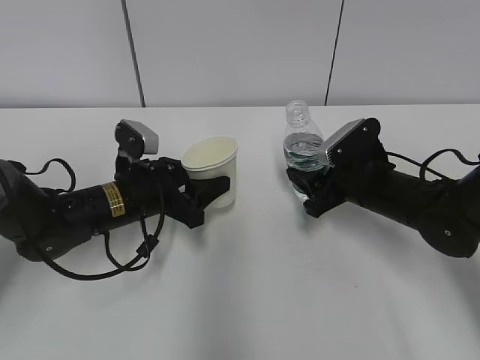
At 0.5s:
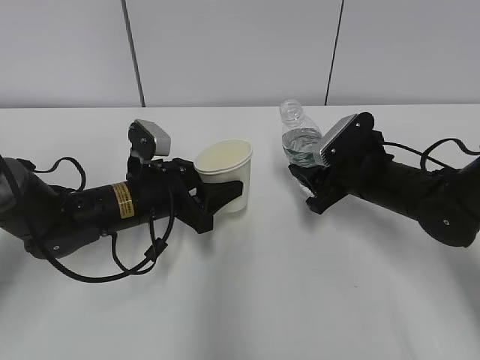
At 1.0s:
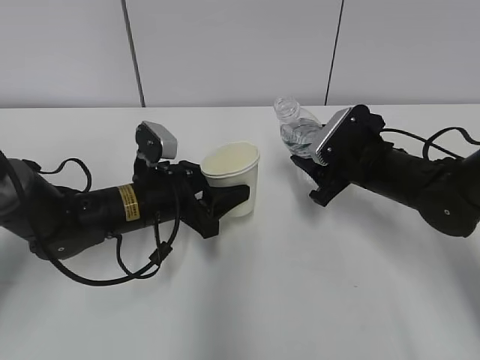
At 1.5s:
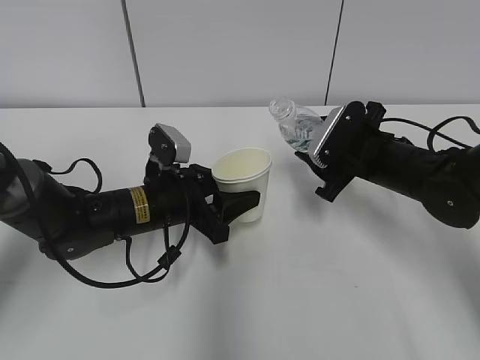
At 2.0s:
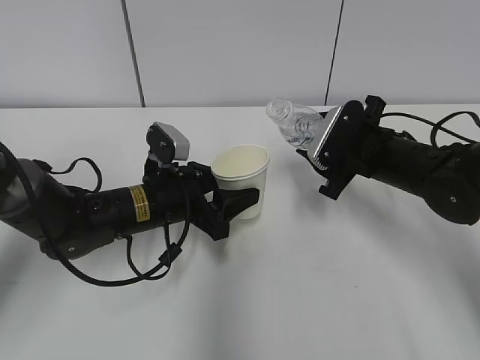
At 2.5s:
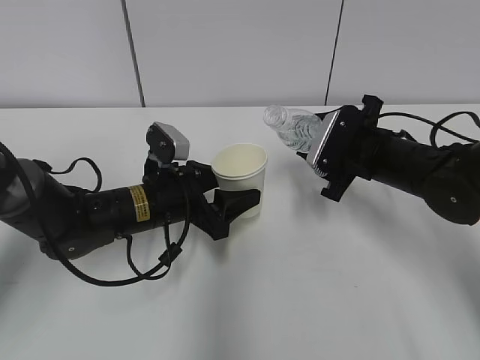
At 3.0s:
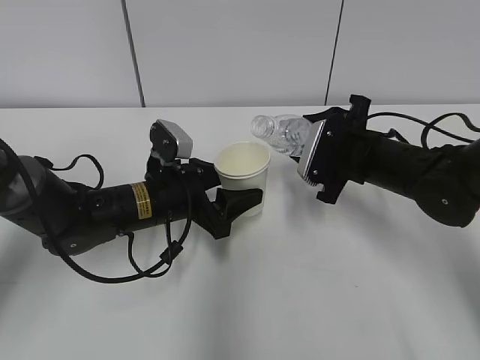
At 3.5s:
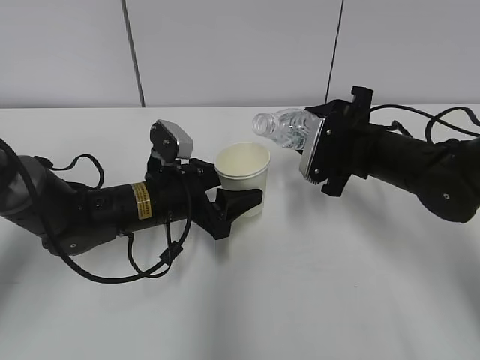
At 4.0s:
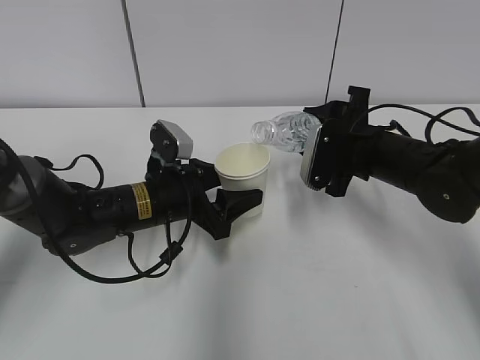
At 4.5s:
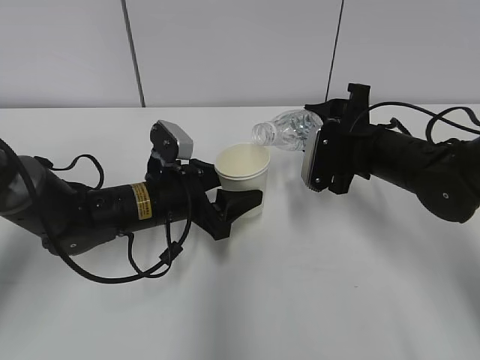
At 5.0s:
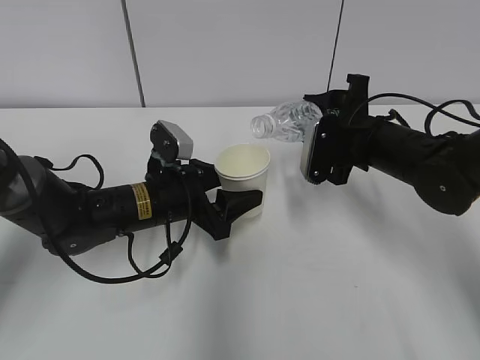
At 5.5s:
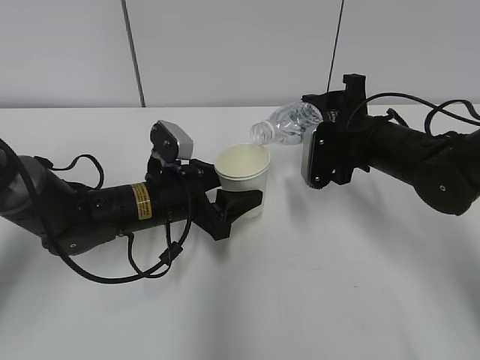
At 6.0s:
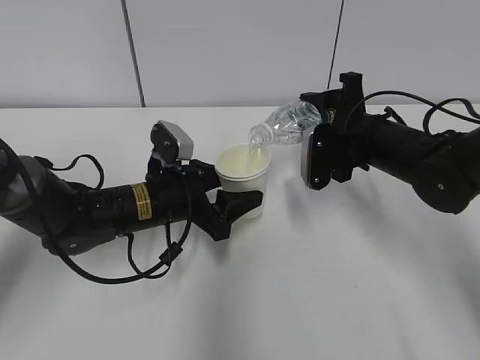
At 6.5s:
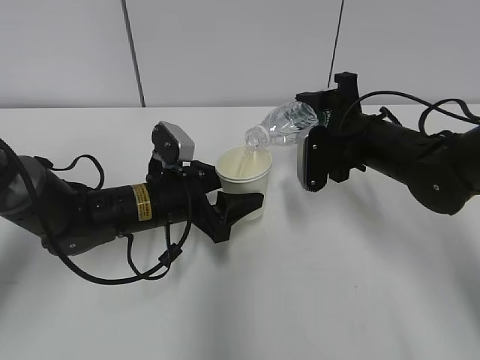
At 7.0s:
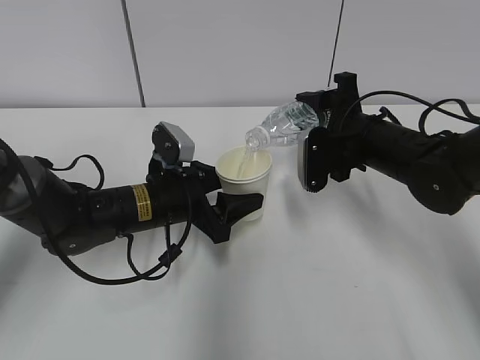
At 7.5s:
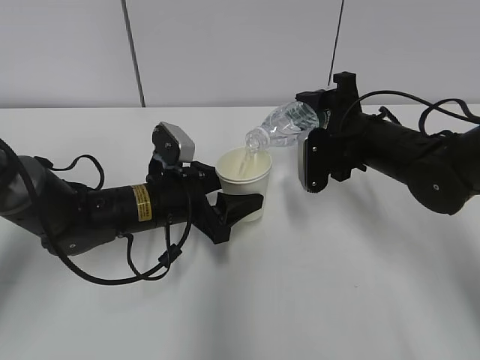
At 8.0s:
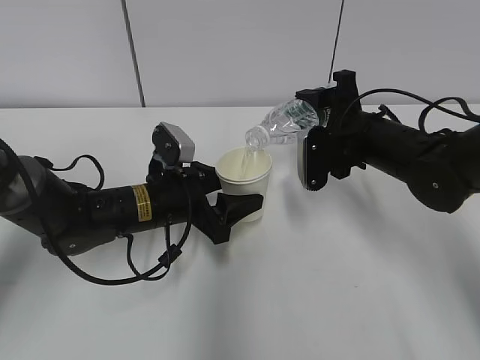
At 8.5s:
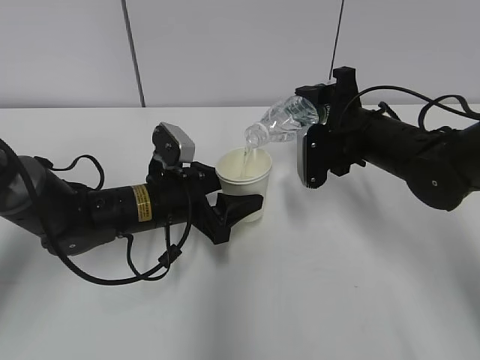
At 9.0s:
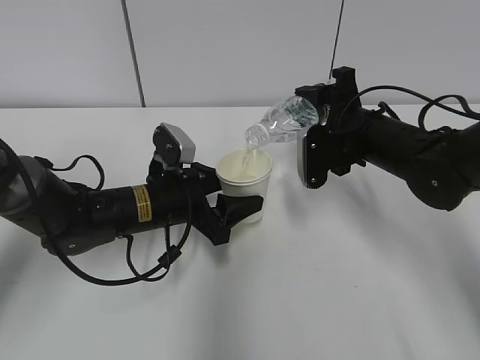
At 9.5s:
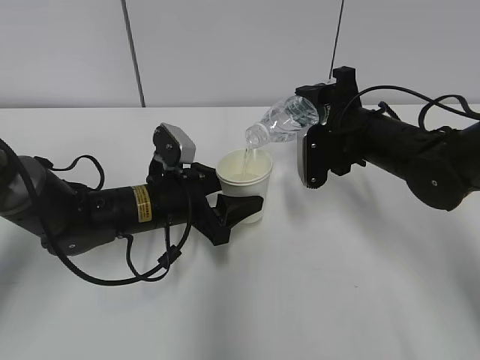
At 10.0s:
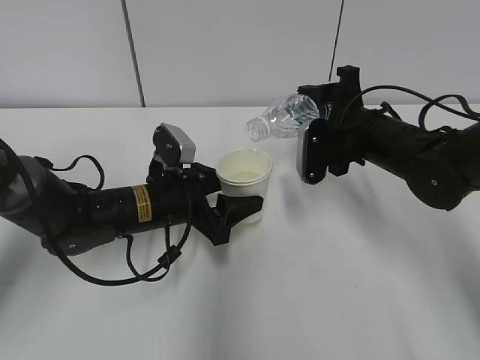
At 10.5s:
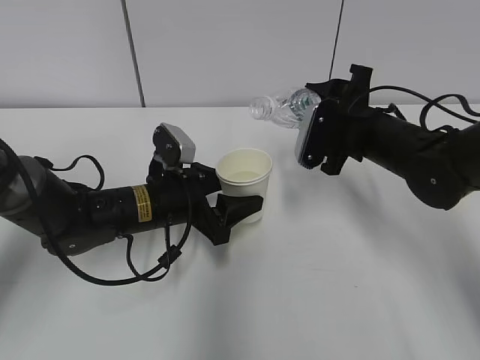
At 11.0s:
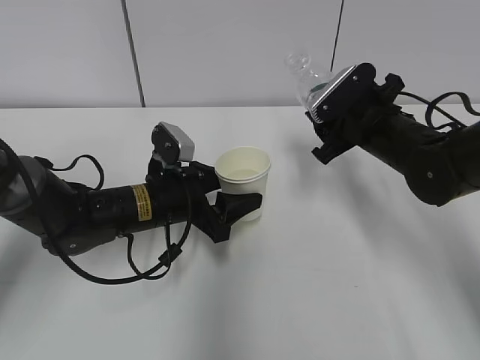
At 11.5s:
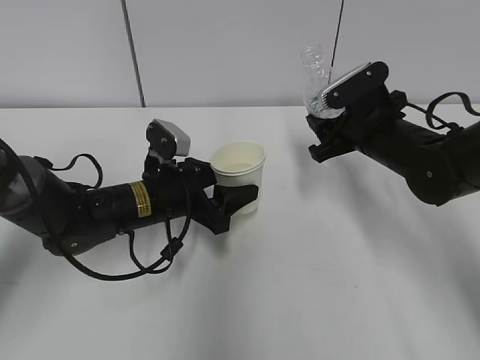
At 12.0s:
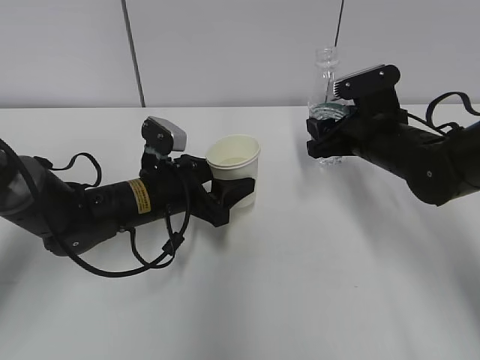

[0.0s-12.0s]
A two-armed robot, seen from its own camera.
Step, 2.0s to 5.0s: Fill water with the left hand.
Step, 2.0s to 5.0s: Pour water with the right hand.
Step, 5.5s to 7.0s: Collect water with the right hand.
Step, 9.5s to 12.0s: Place the water bottle with the right hand.
4.0s to 6.0s: The grippers move only a little.
6.0s to 8.0s: Neither gripper changes place.
8.0s to 10.0s: Neither gripper changes place.

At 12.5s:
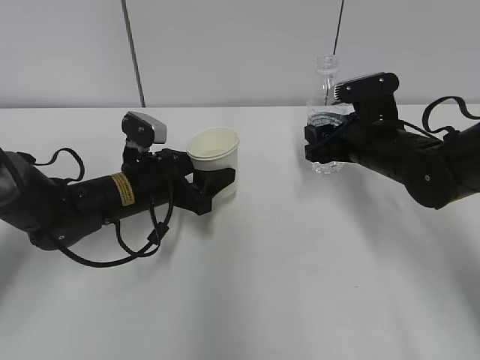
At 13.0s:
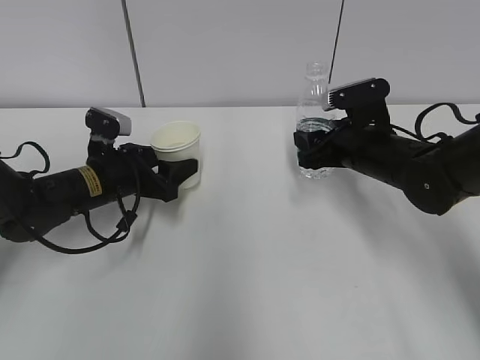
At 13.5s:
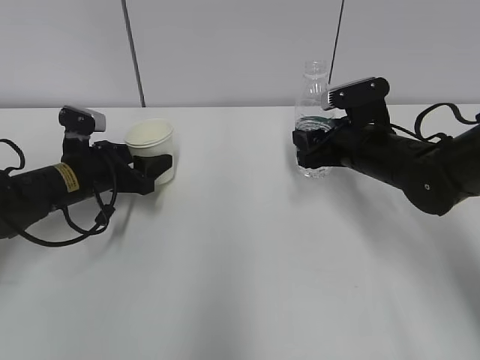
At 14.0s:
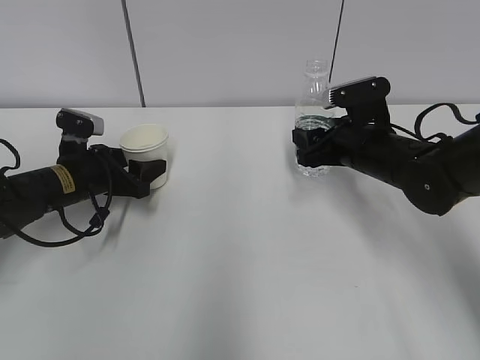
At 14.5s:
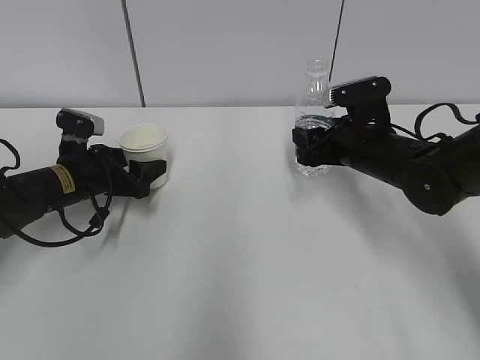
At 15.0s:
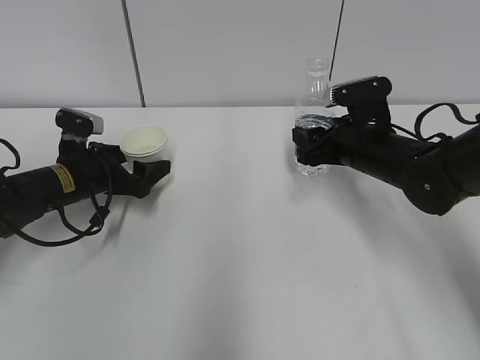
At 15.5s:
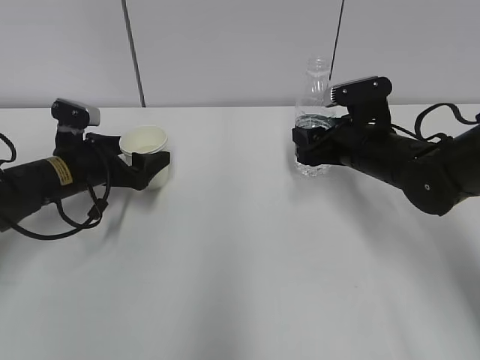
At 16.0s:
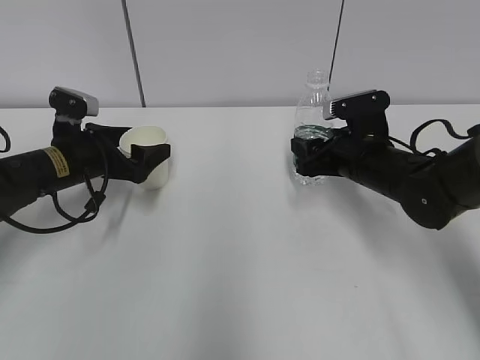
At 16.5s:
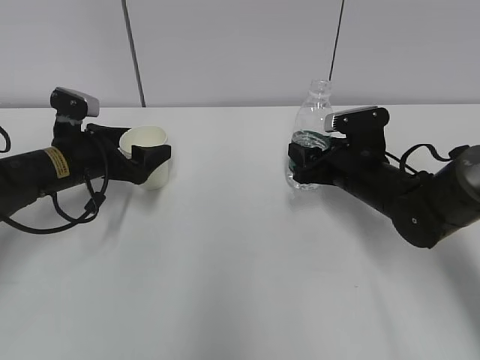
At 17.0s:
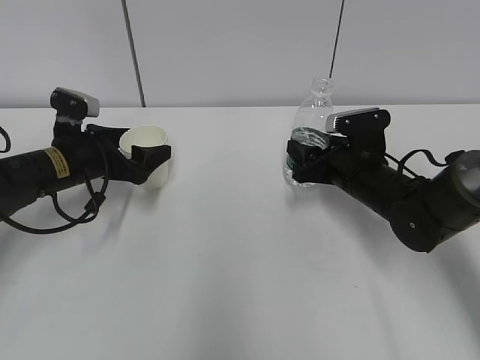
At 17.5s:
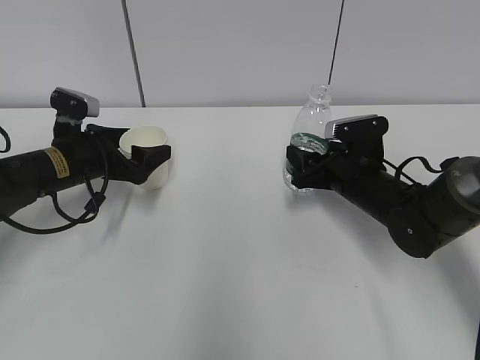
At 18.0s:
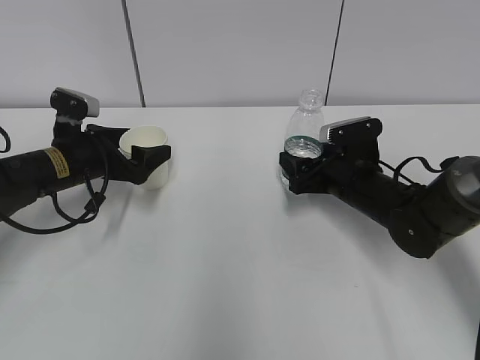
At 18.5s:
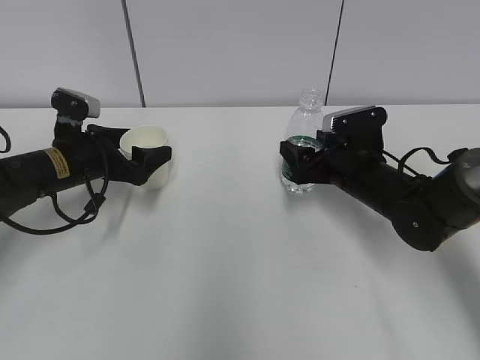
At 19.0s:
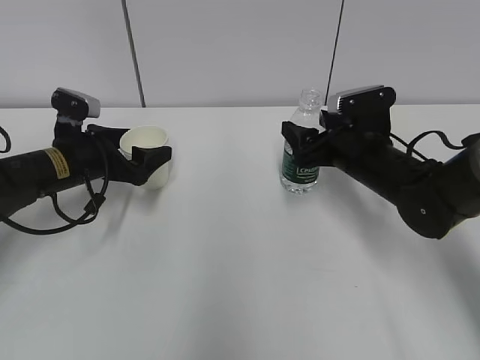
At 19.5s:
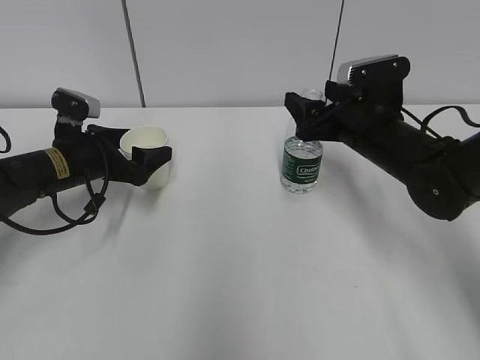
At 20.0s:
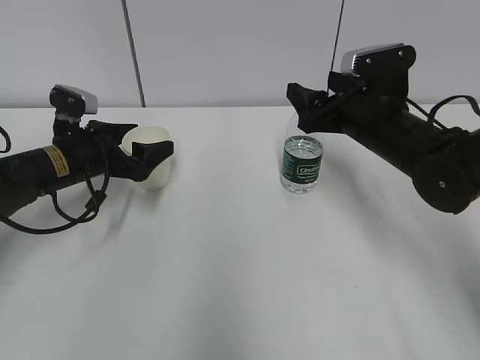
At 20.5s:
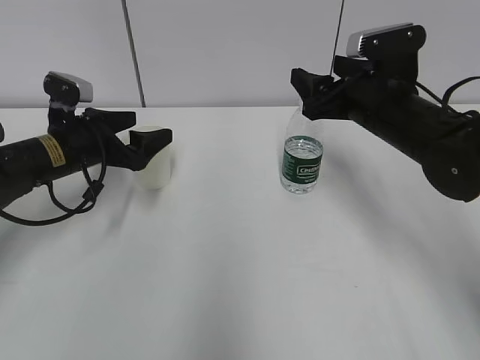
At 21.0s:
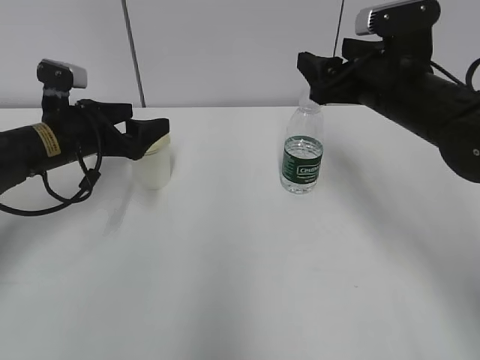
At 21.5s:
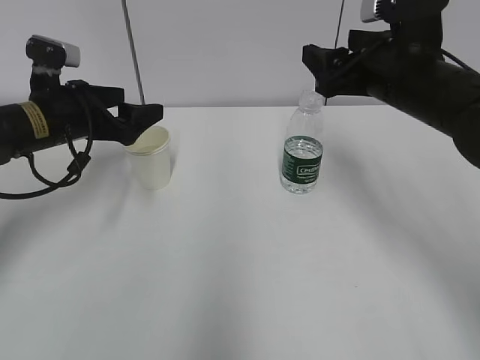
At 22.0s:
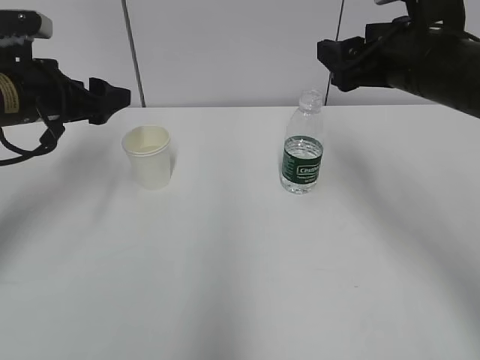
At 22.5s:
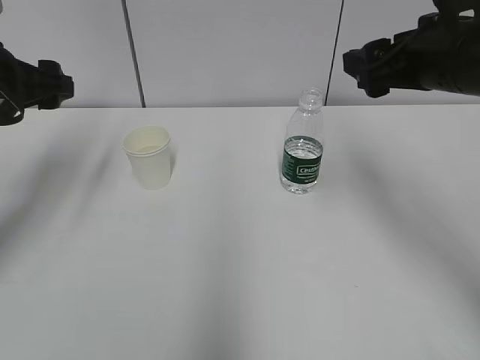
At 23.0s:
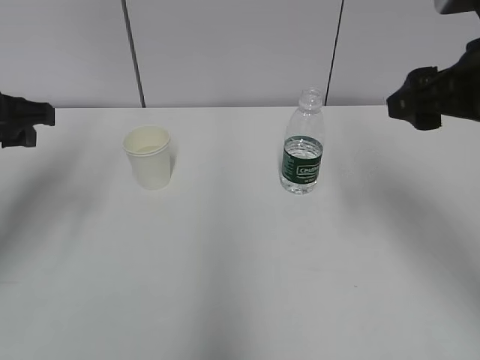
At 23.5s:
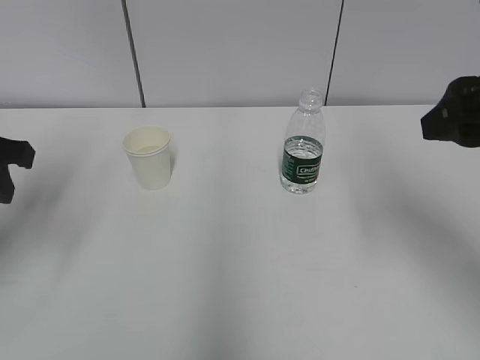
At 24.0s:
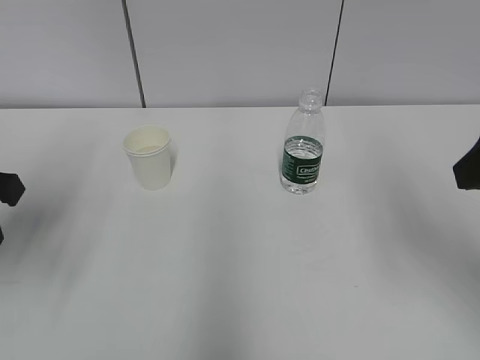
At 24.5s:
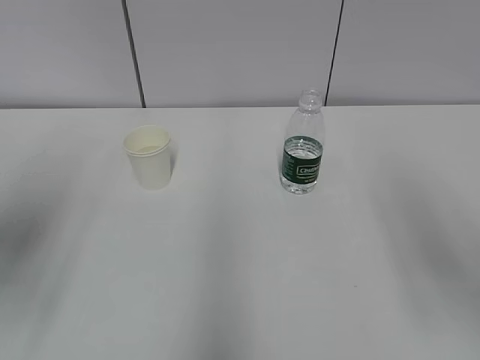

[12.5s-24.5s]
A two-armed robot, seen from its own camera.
12.5s to 14.5s: The left gripper is displaced to the left by approximately 10 cm.
14.5s to 16.5s: The left gripper opens up.
16.5s to 18.5s: The right gripper opens its fingers.
18.5s to 20.5s: The right gripper shifts roughly 10 cm upward.
20.5s to 22.5s: The left gripper goes some 15 cm upward, while the right gripper travels upward and backward by roughly 10 cm.
22.5s to 24.5s: The grippers both shift backward by approximately 15 cm. The left gripper closes its fingers.
